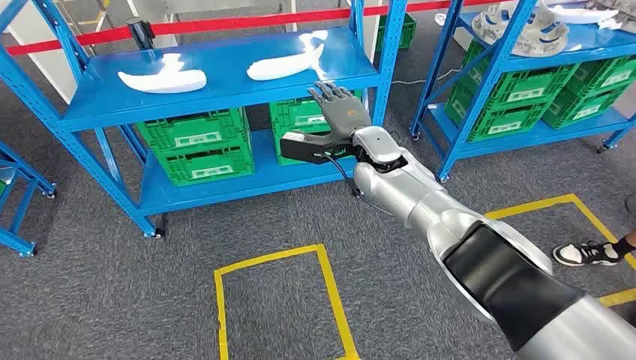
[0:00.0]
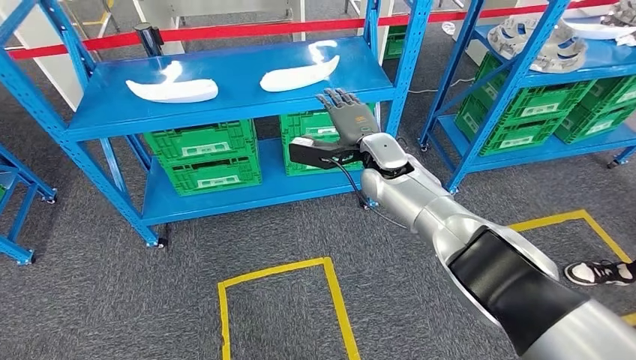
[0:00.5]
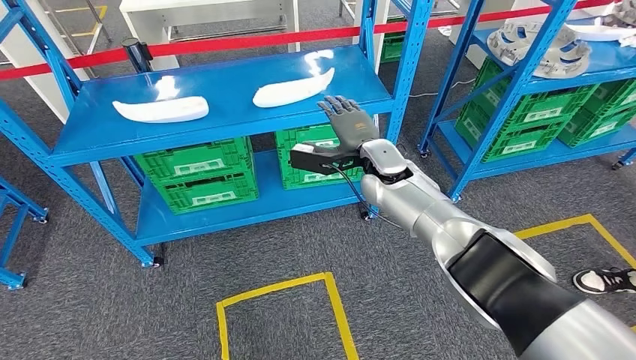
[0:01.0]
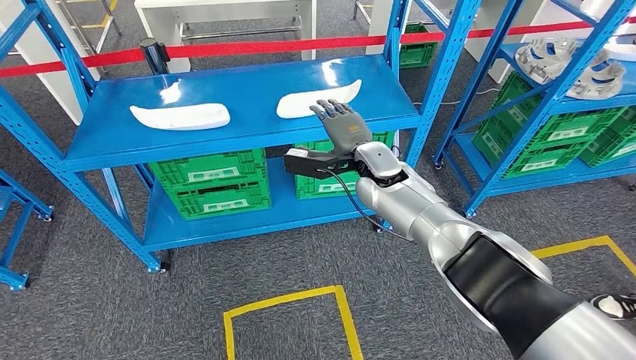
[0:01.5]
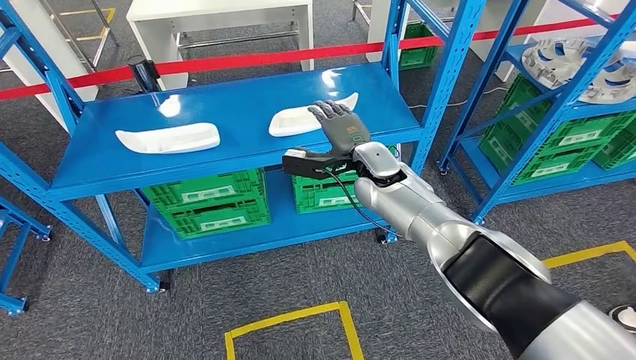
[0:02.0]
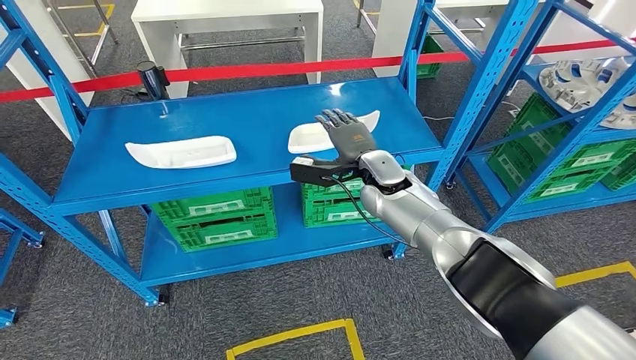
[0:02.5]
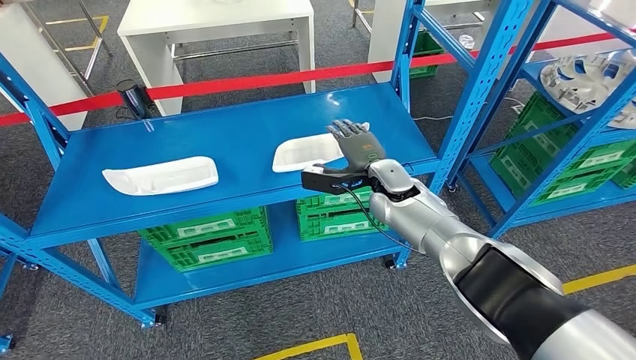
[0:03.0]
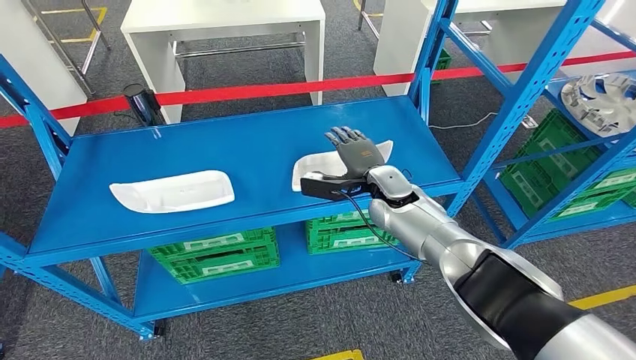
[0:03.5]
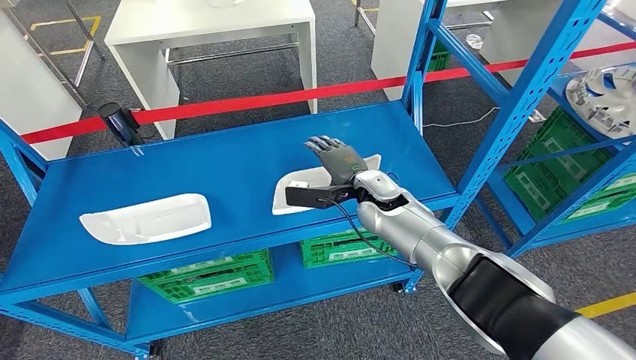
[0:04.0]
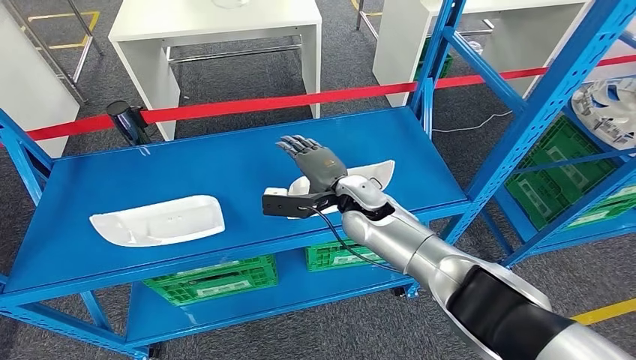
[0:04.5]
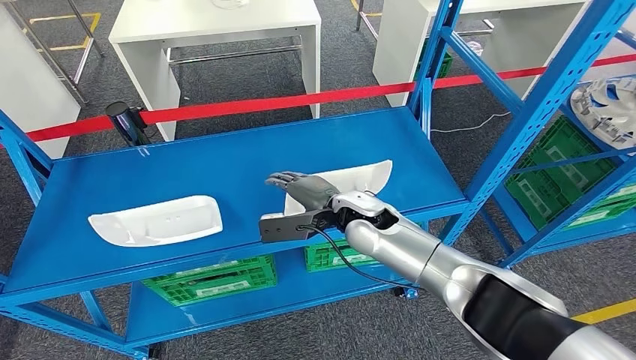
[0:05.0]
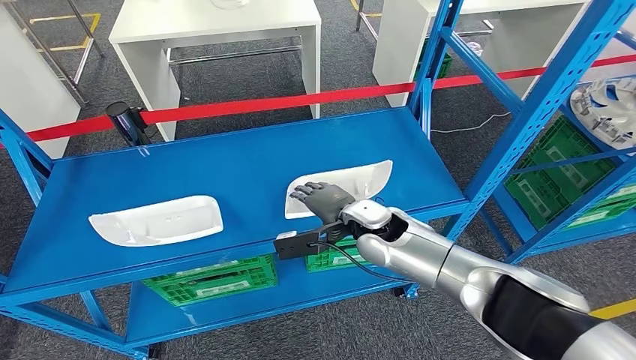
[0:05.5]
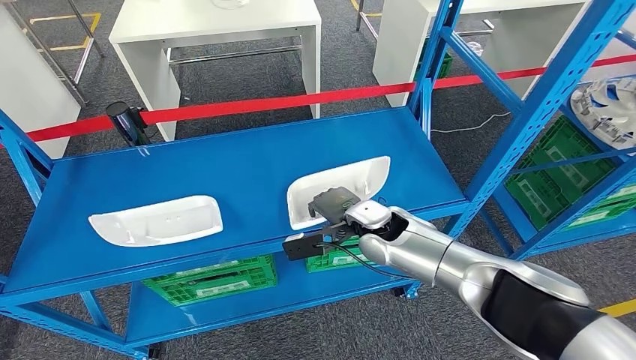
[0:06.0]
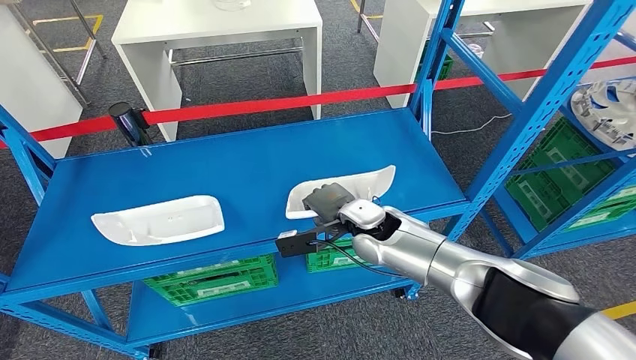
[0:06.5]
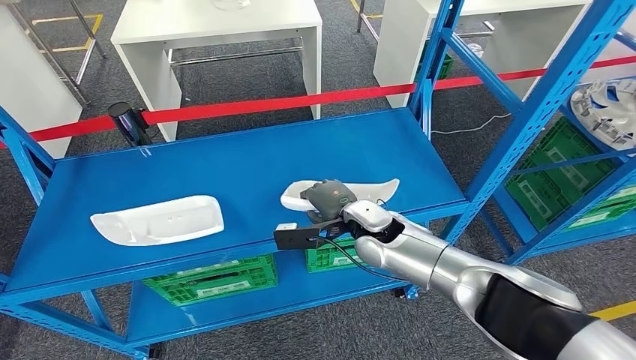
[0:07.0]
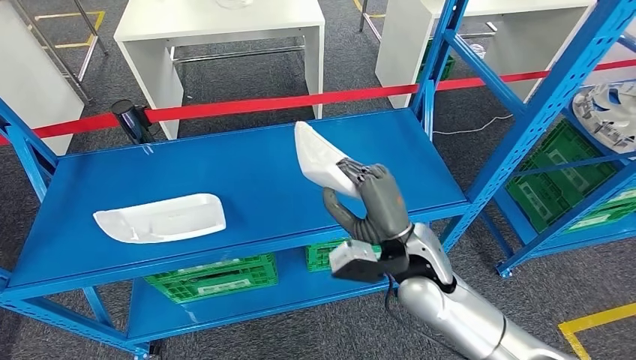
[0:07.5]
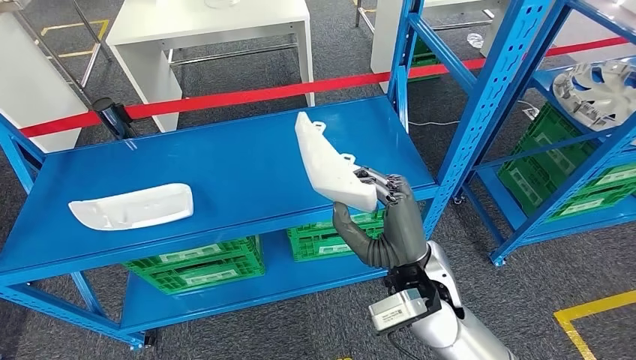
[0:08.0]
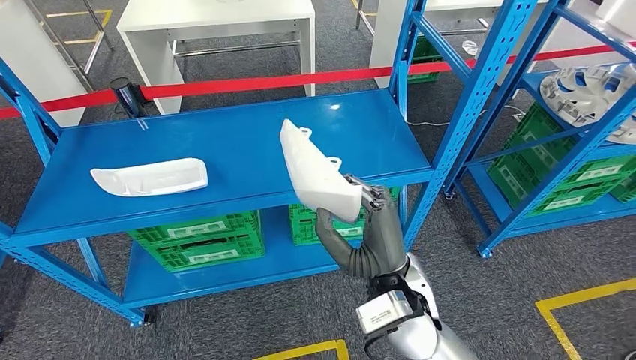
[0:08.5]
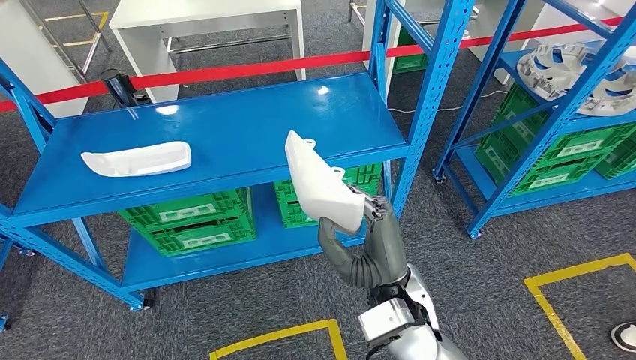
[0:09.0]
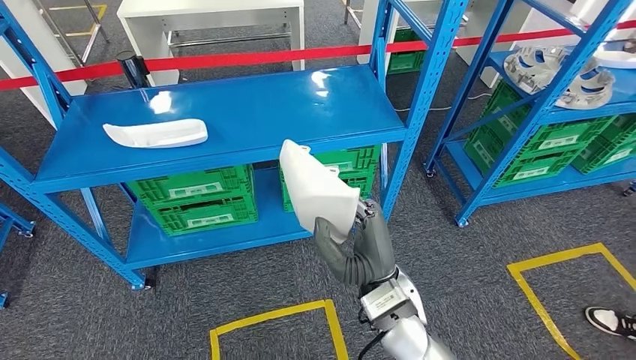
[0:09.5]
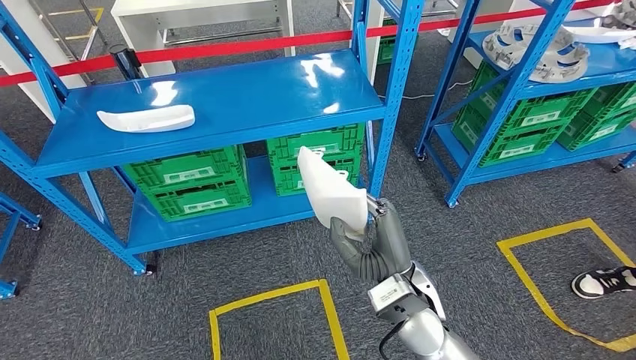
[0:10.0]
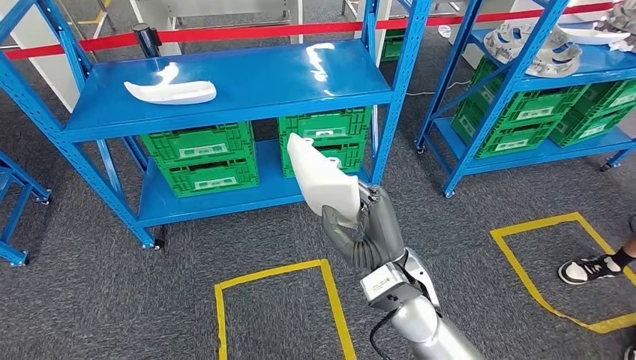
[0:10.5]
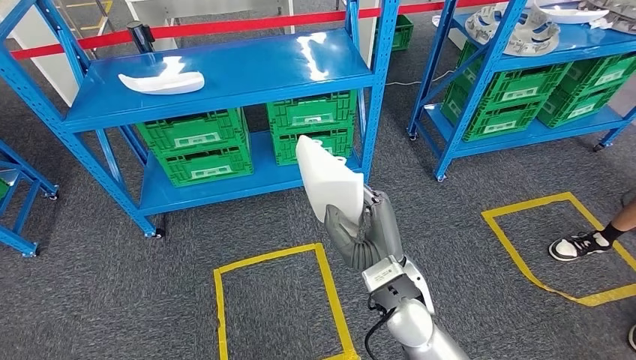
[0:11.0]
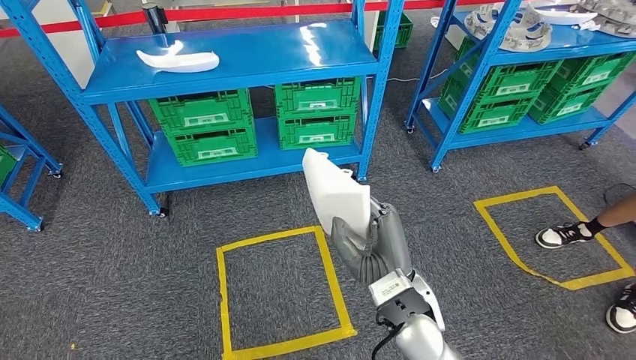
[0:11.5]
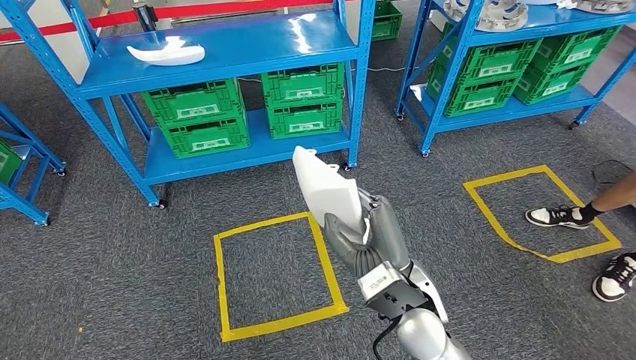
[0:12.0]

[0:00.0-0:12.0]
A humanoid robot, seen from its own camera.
Step, 0:00.0 to 0:07.5: Pick up the small component from the shelf.

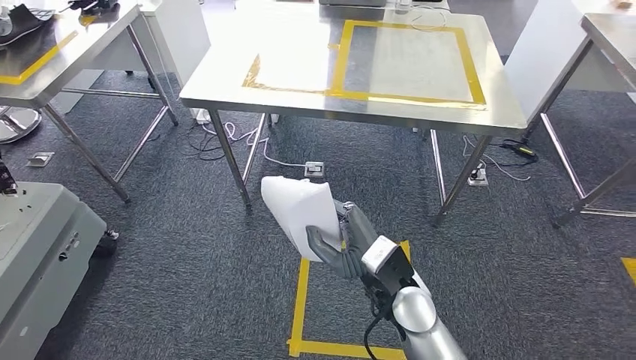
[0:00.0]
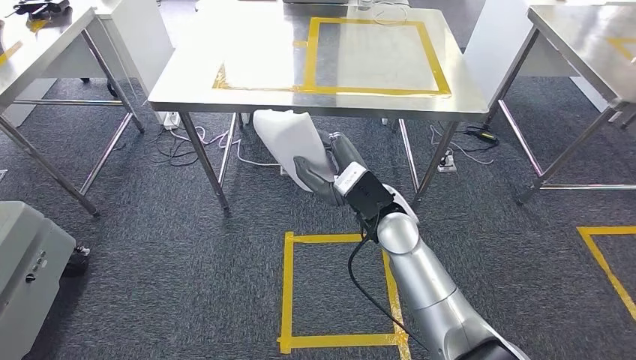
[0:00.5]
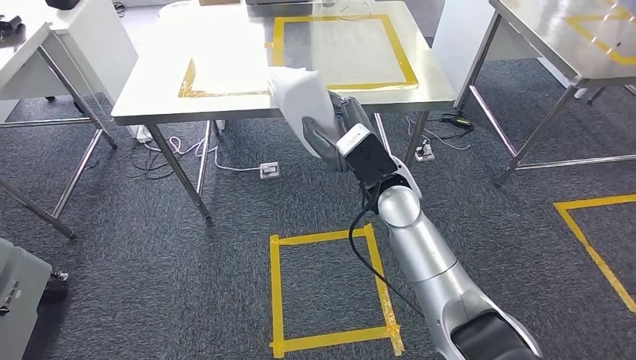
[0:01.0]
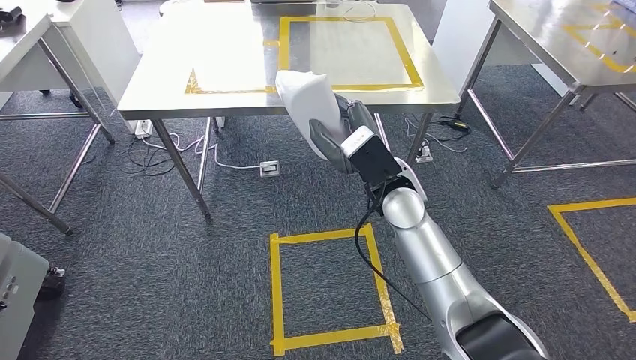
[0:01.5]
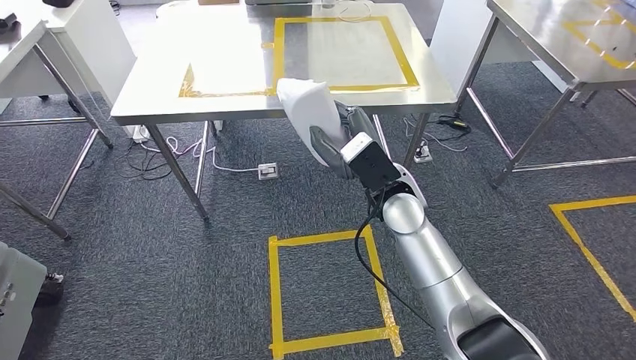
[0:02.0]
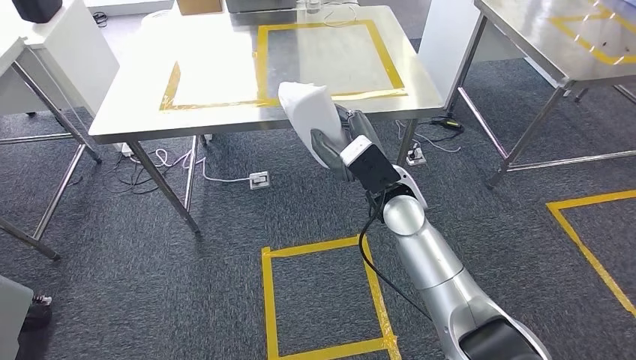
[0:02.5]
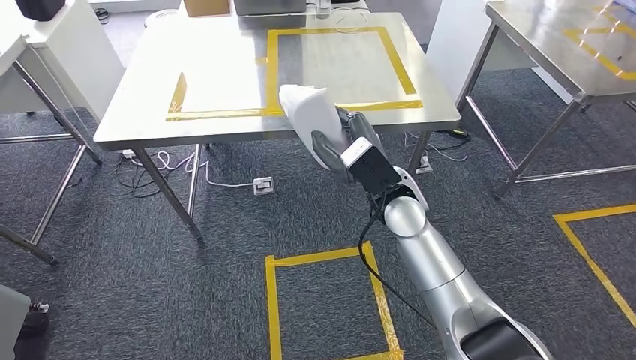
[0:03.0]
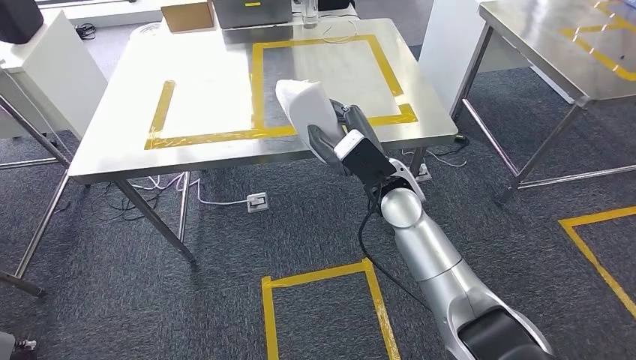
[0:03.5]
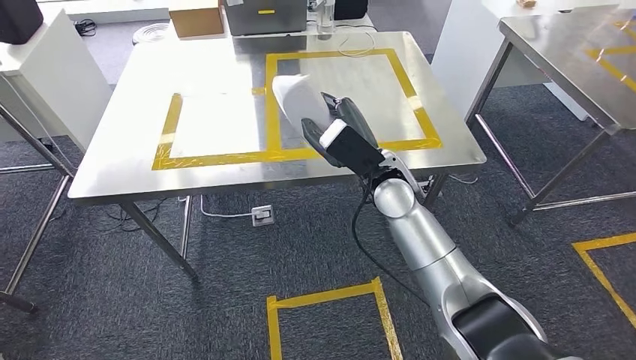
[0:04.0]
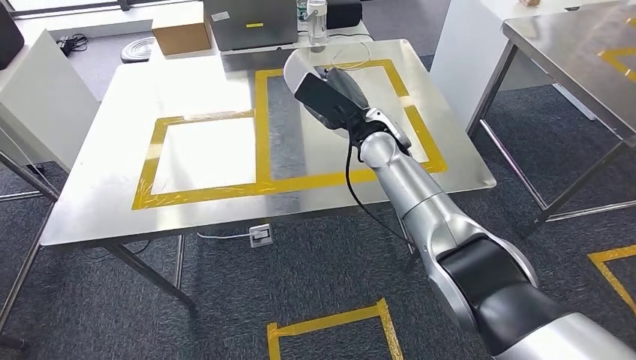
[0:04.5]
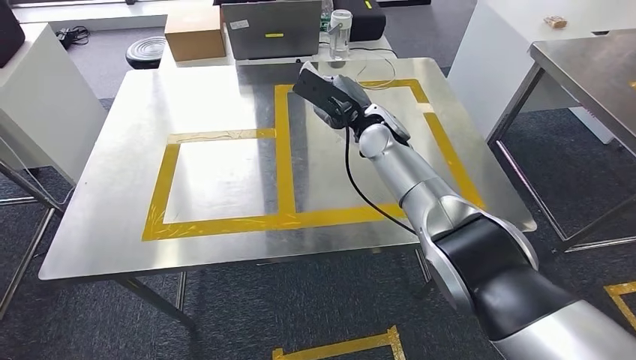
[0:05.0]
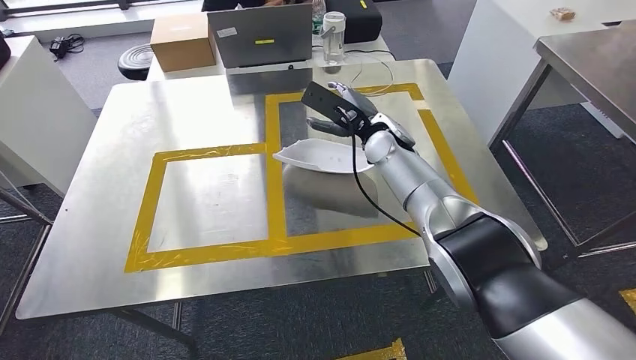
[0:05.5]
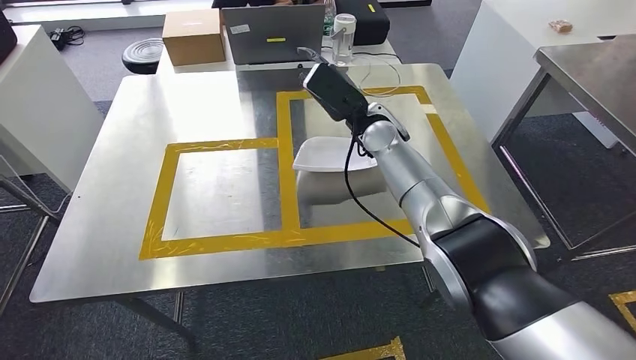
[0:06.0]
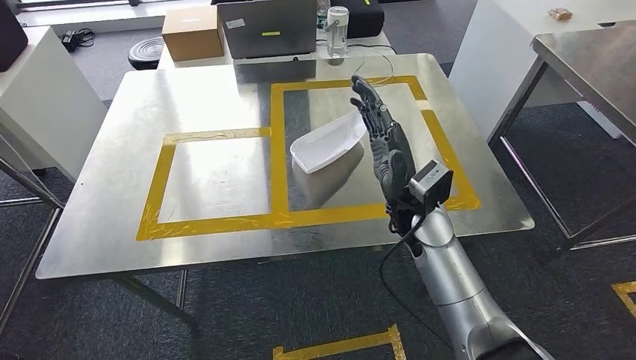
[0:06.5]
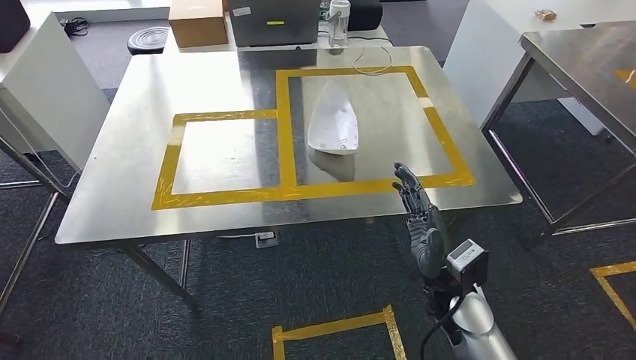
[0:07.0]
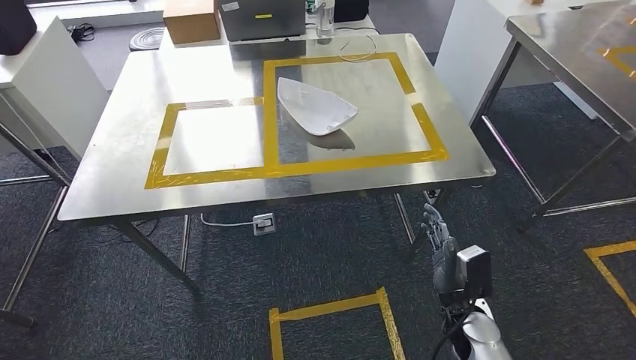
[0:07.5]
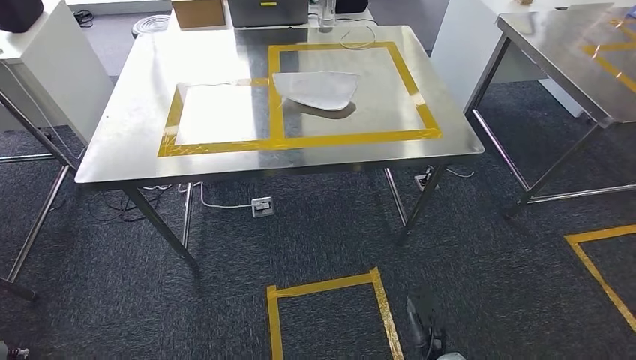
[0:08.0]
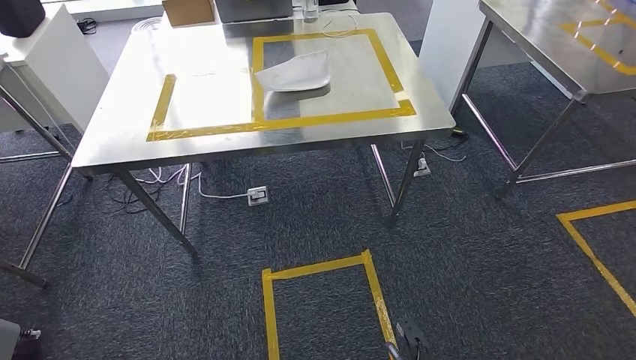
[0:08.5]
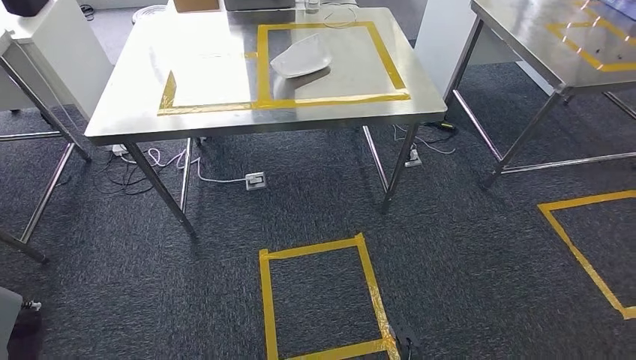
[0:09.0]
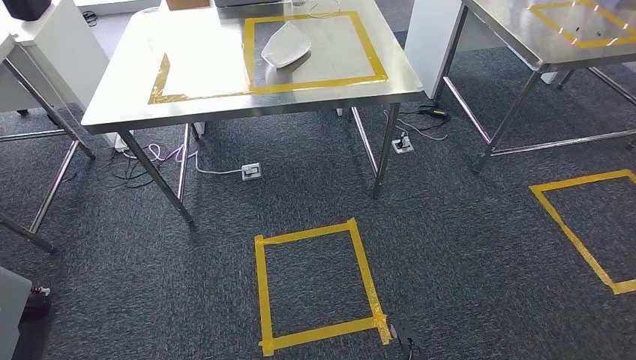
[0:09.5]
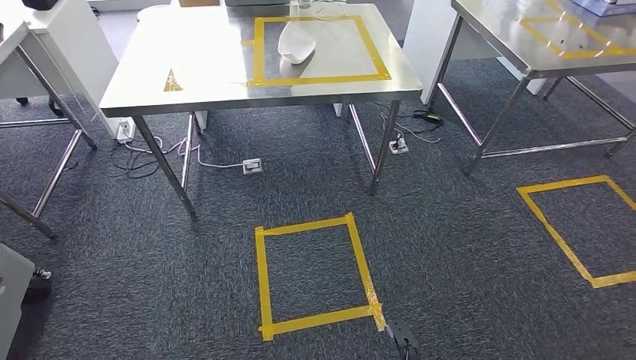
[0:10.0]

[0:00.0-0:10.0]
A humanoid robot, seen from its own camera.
Step, 0:00.0 to 0:04.0: Bring the small component to the front of the workbench.
Step, 0:04.5 to 0:08.0: Insert the small component into the corresponding slot on the workbench.
Step, 0:08.5 to 0:10.0: Move to the initial position of the workbench.
